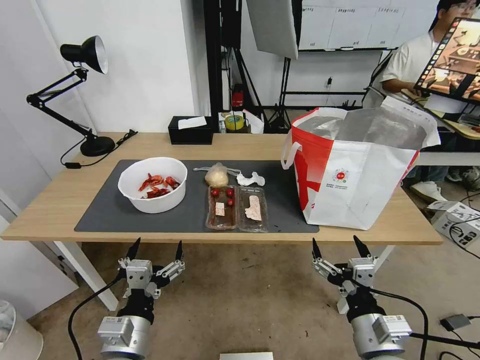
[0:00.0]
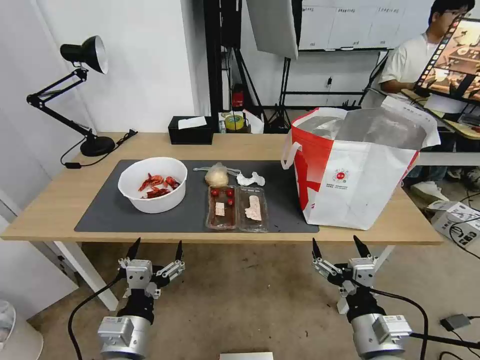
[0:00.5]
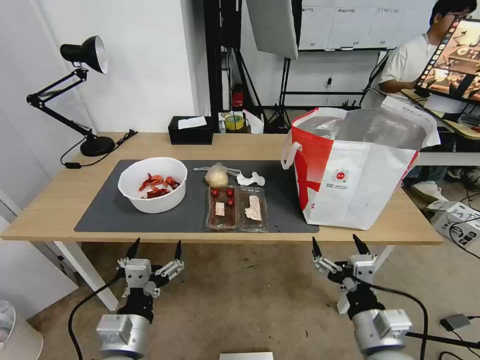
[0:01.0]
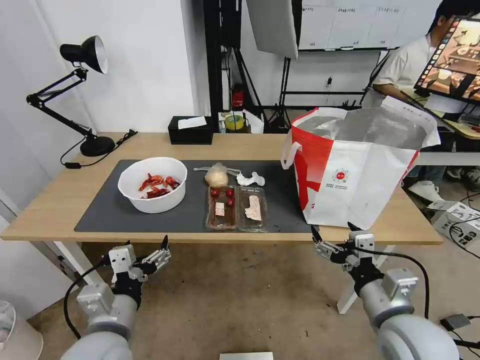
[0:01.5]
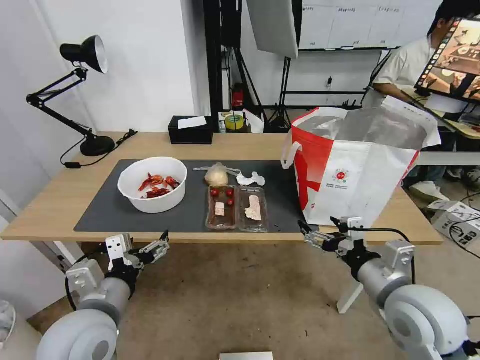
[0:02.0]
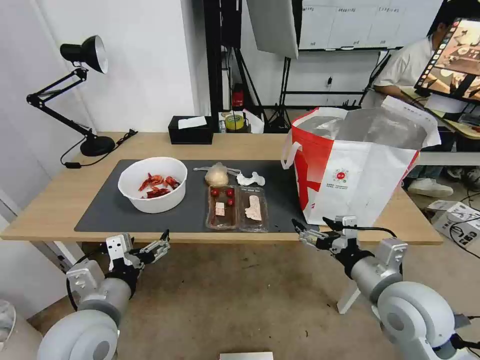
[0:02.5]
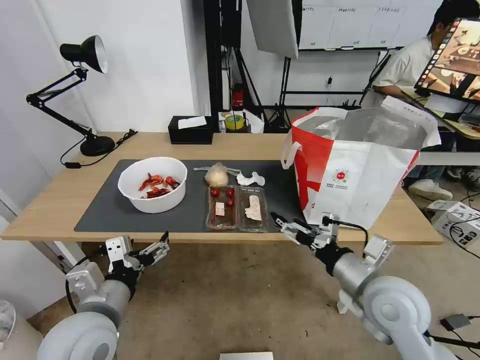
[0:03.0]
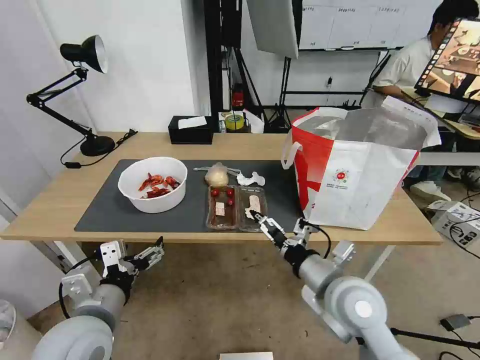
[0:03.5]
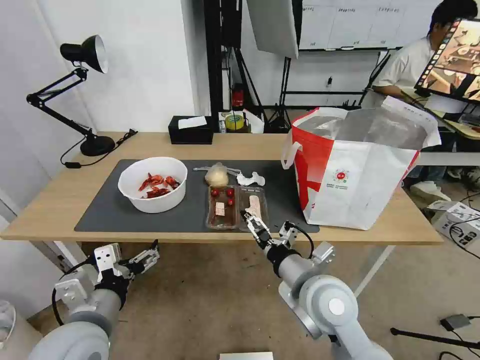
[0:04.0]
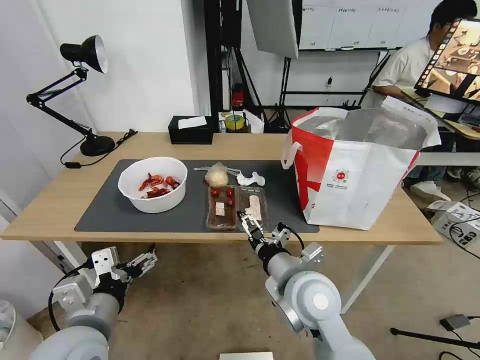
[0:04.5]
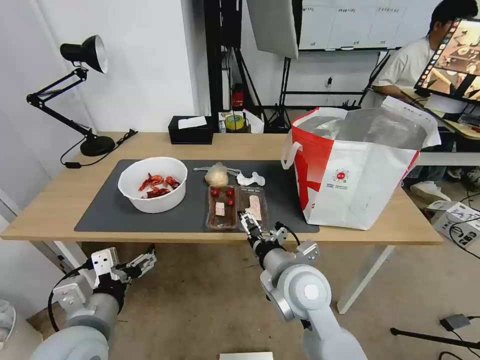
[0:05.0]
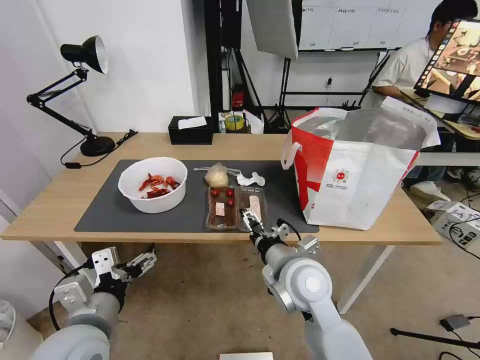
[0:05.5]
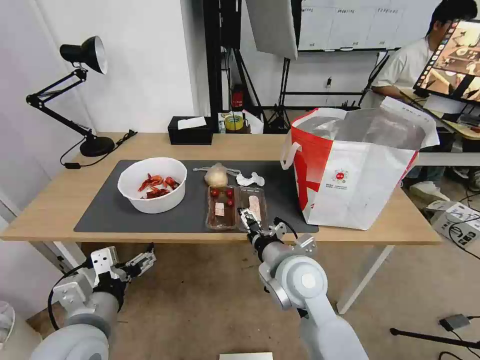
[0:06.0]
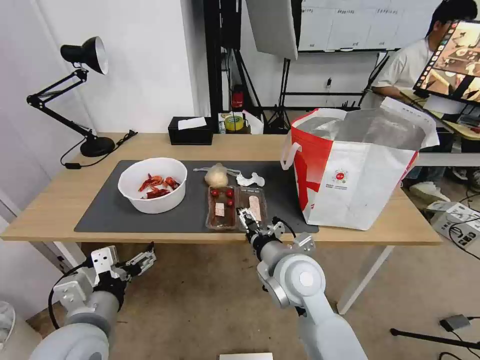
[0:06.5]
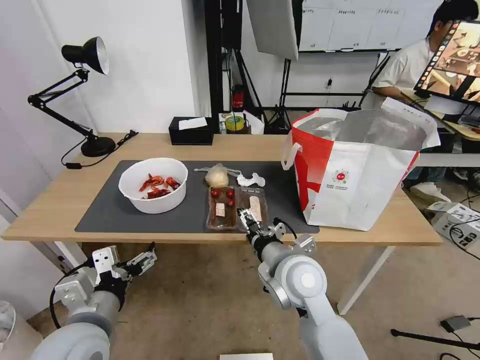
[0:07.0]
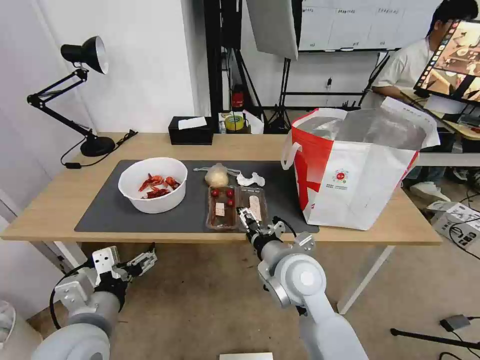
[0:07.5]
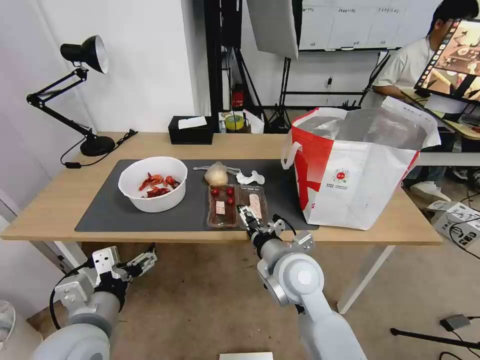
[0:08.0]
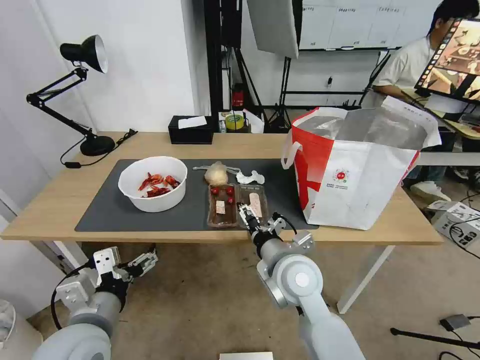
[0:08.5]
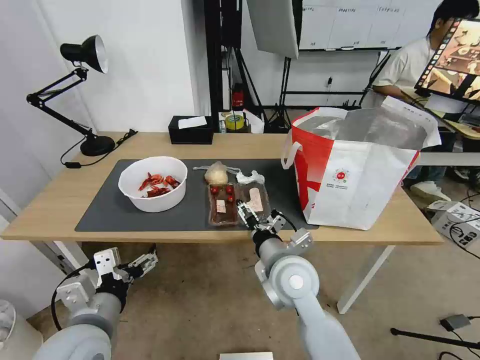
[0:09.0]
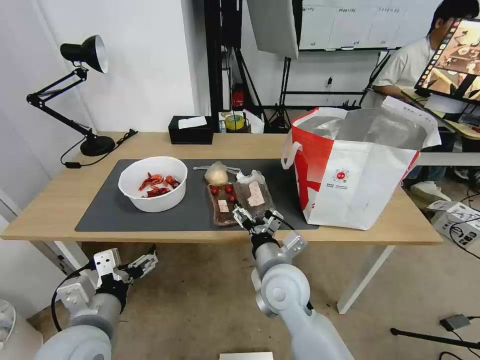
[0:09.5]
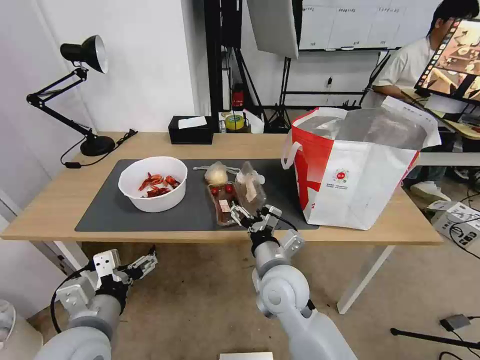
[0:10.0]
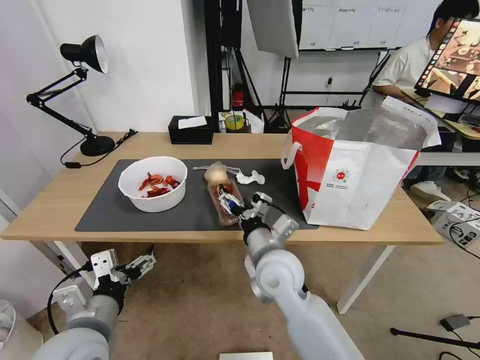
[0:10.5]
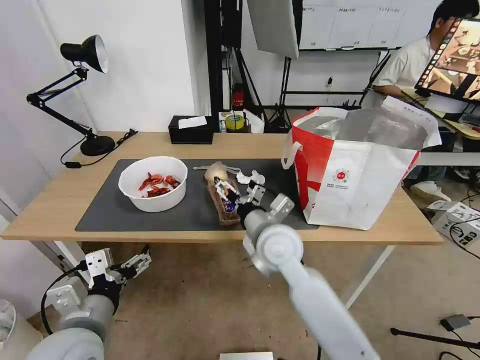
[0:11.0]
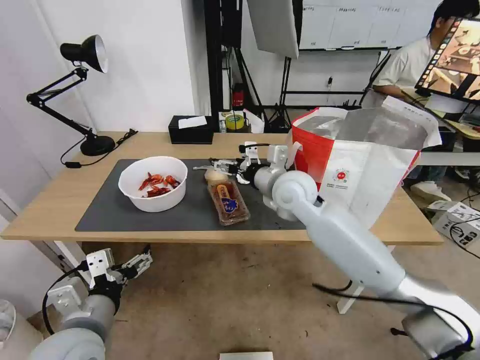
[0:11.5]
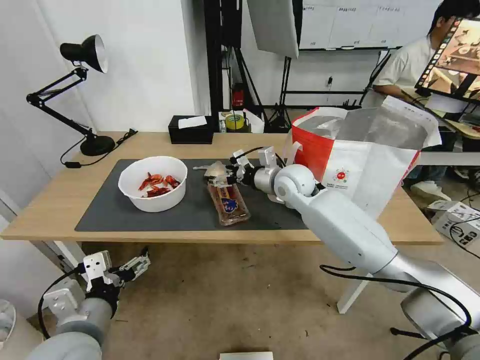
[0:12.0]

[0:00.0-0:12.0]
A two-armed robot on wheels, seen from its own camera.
Task of the whole recording: Pick up the trash from the table and place it into the takeout bag.
2.0 to 4.0 s: The right gripper is displaced to the left by roughly 15 cm.
4.0 to 6.0 s: The right gripper shifts by roughly 5 cm.
6.0 to 8.0 s: Both grippers stay about where they are.
10.0 to 12.0 s: The right gripper goes some 25 cm forward.

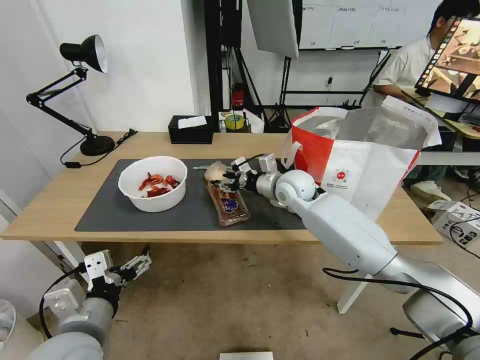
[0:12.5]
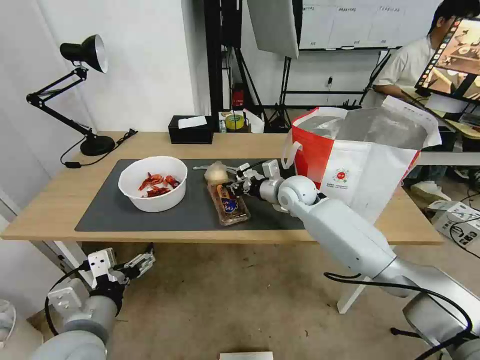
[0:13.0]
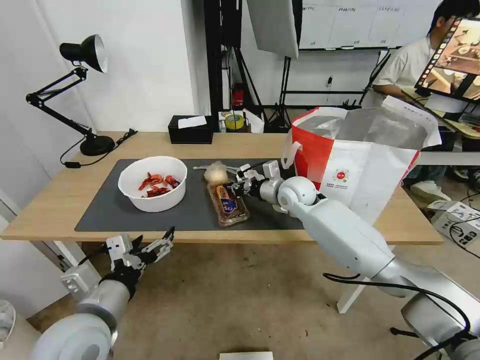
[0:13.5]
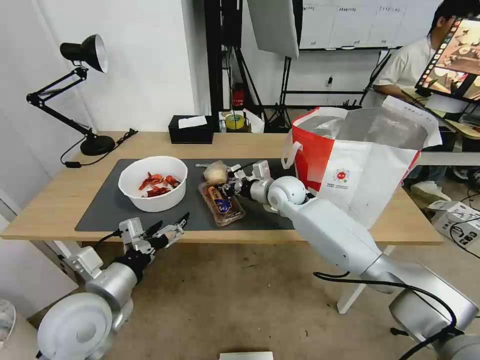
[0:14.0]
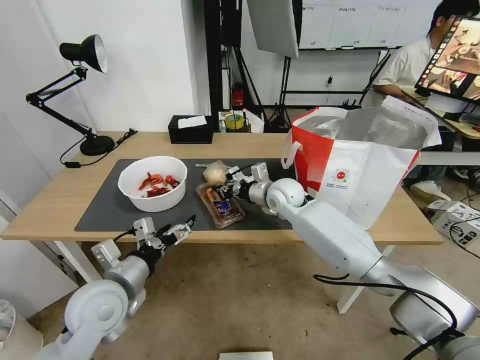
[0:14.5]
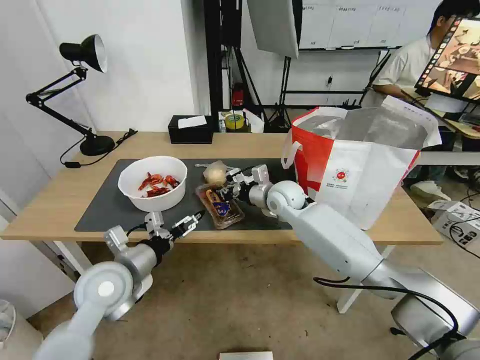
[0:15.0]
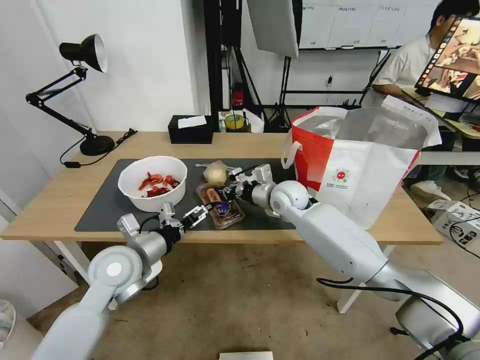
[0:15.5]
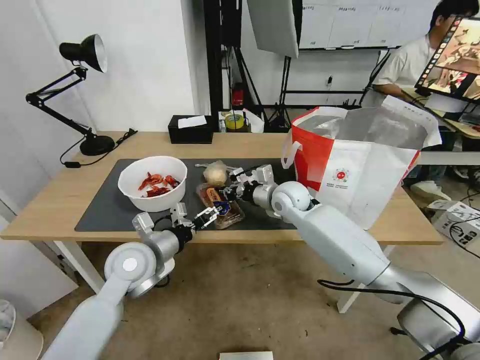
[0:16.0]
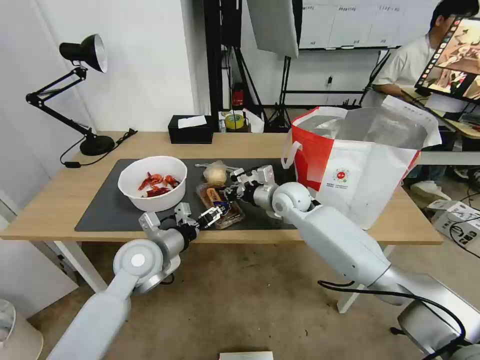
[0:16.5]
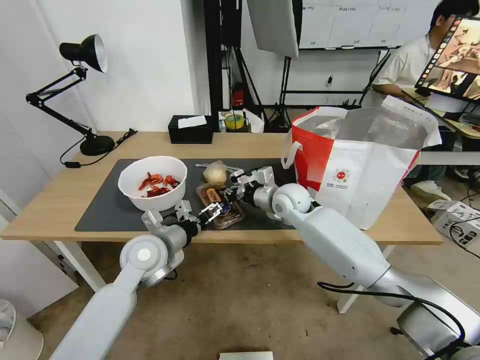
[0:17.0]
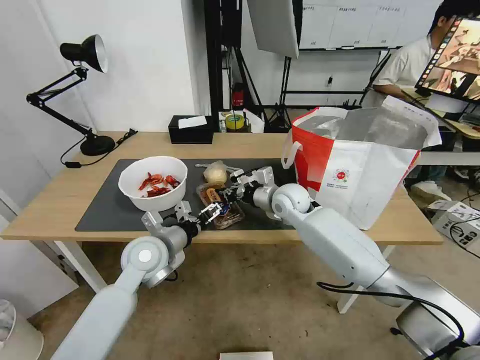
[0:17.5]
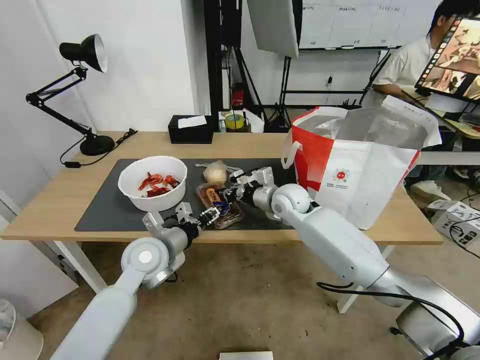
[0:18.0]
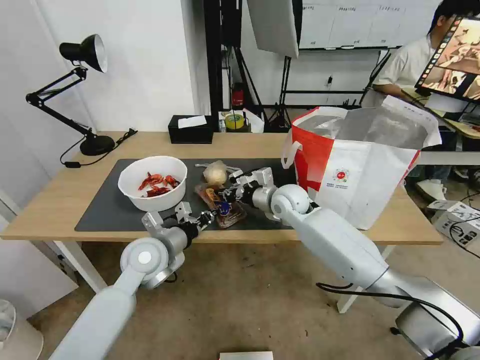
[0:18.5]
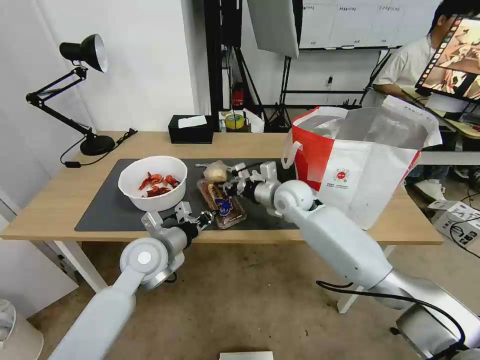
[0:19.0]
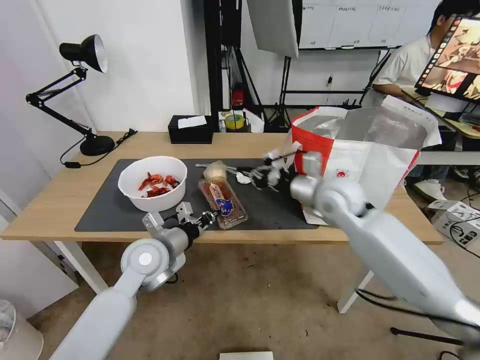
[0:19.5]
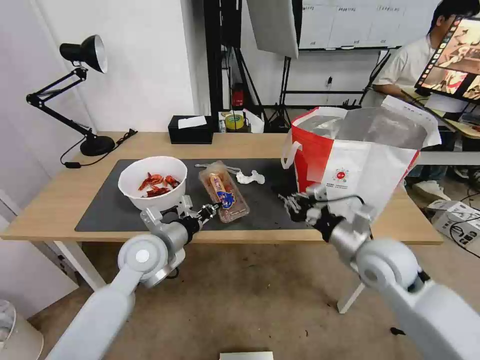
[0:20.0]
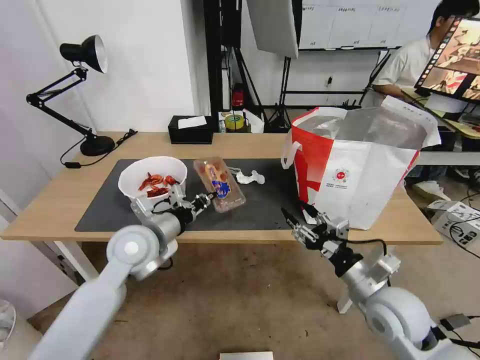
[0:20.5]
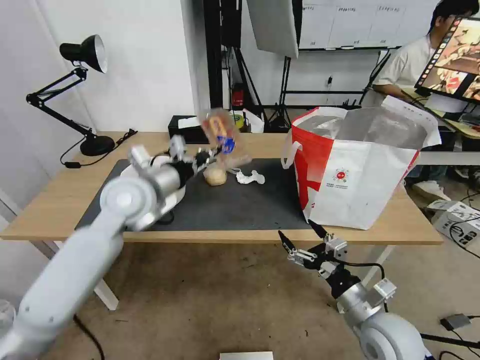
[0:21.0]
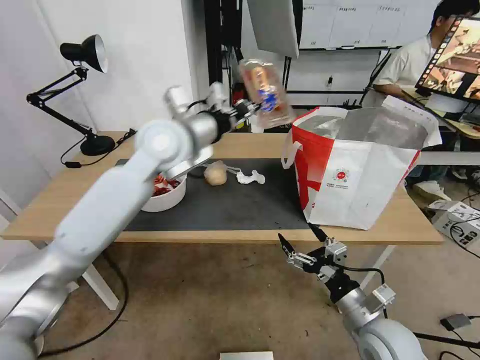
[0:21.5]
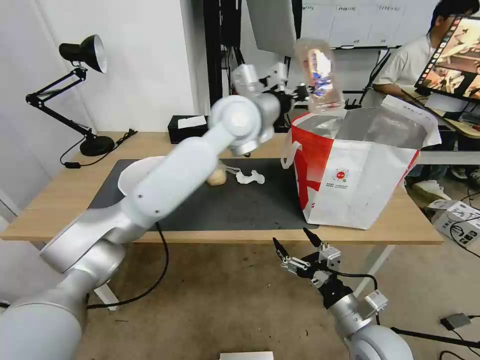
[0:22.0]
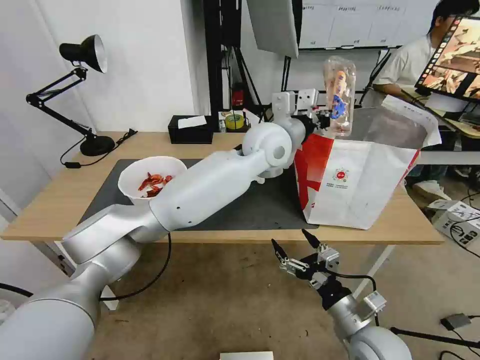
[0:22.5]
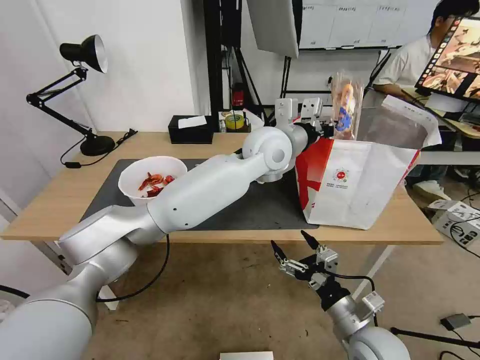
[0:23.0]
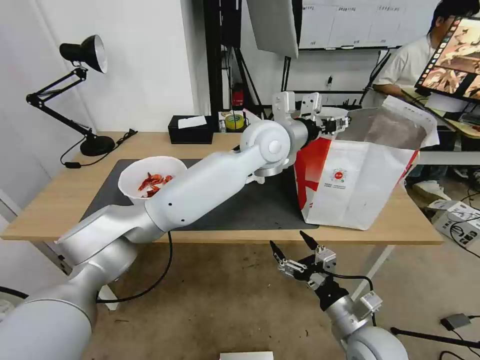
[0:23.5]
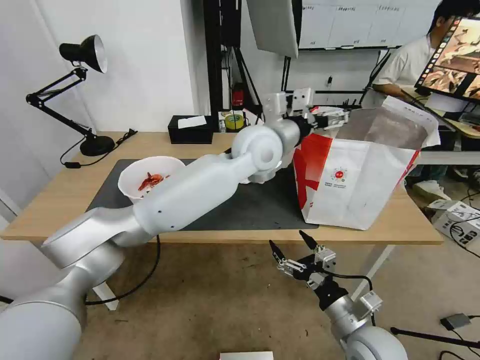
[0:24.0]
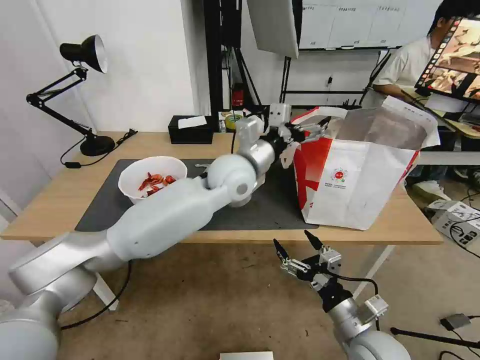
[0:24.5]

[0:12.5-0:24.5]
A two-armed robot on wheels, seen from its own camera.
Task of the whole recording: Pick up the trash from the table and place it into the takeout bag.
12.5 to 14.5 s: The left gripper is displaced forward by about 10 cm, while the right gripper closes up.
14.5 to 16.5 s: The left gripper is displaced forward by roughly 10 cm.
16.5 to 18.5 s: The left gripper closes its fingers.
18.5 to 20.5 s: The right gripper travels backward and to the right by about 30 cm, and opens.
20.5 to 22.5 s: The left gripper travels to the right, forward and upward by some 35 cm. Meanwhile the right gripper goes roughly 5 cm backward, and opens.
22.5 to 24.5 s: The left gripper goes approximately 10 cm to the left and downward, and opens its fingers.

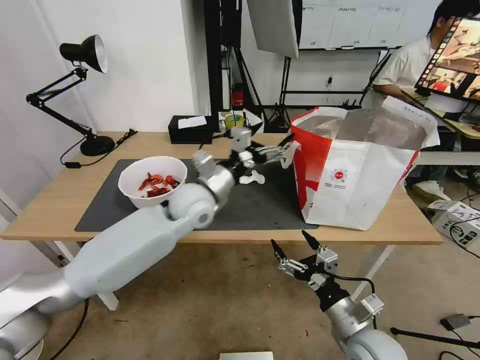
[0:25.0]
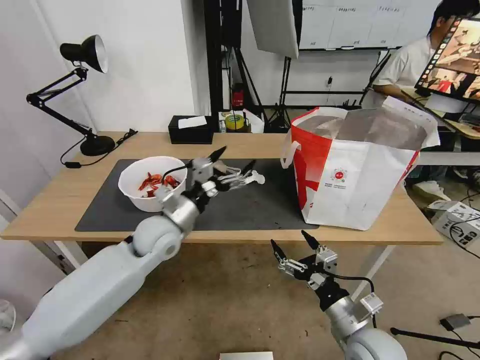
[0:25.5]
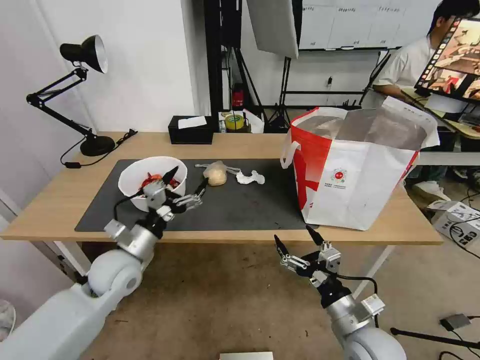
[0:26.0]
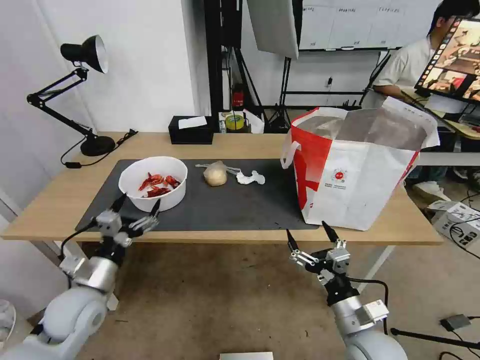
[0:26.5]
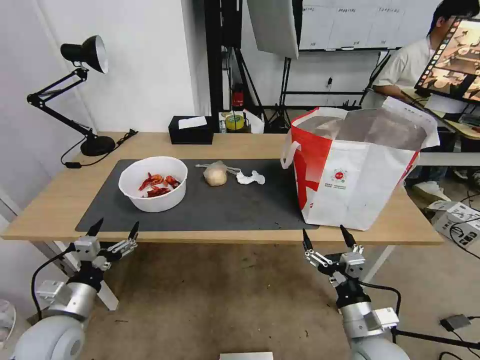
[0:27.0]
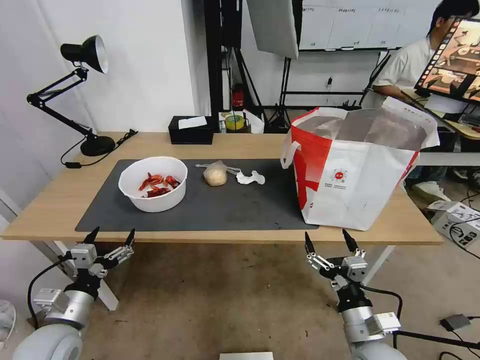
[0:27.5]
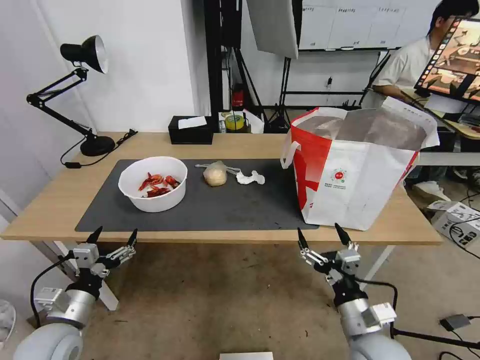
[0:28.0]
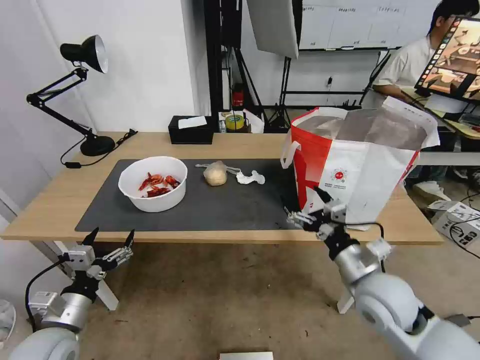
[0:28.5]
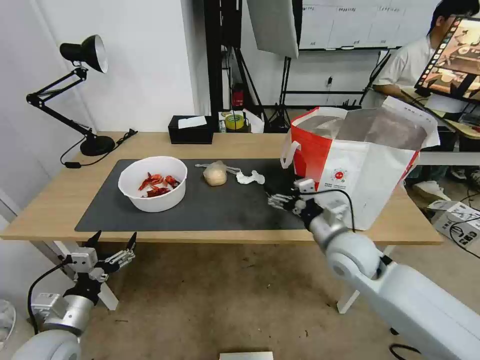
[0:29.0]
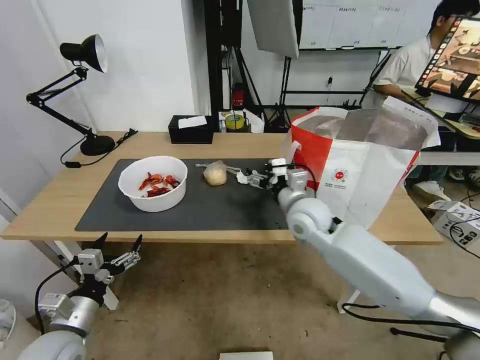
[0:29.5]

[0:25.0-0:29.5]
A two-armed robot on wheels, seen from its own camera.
Task of the whole recording: Pick up the trash from the table and place it into the takeout bag.
25.0 to 27.0 s: The left gripper heads to the left, backward and downward, covering roughly 35 cm.
27.0 to 29.5 s: The right gripper is displaced forward and upward by about 30 cm.
